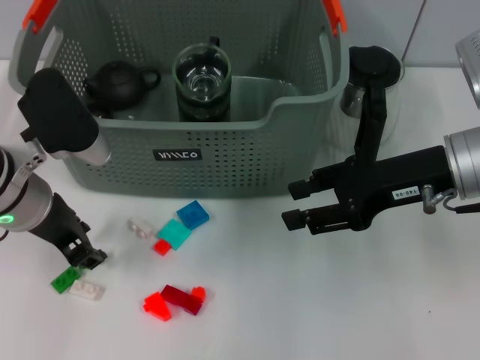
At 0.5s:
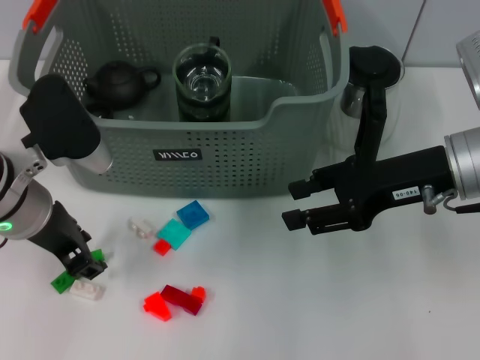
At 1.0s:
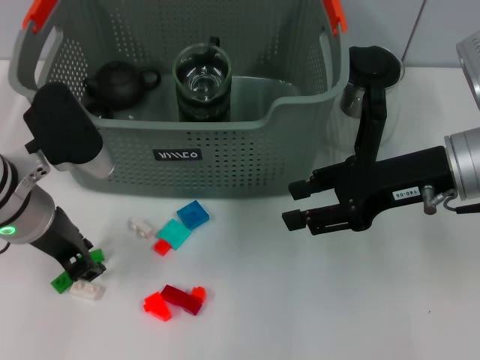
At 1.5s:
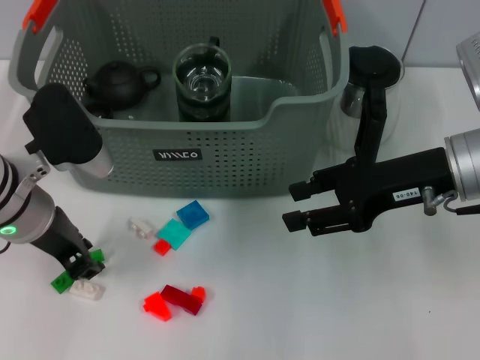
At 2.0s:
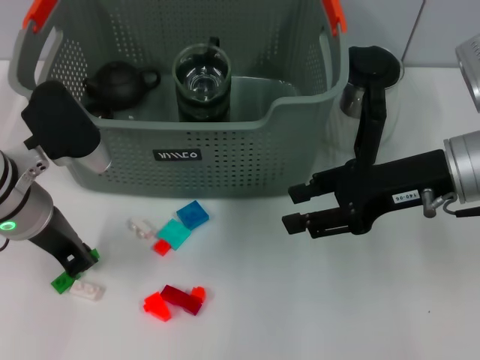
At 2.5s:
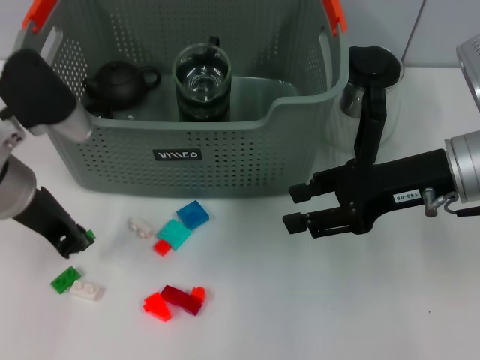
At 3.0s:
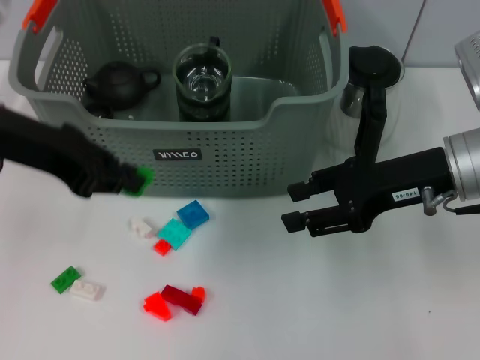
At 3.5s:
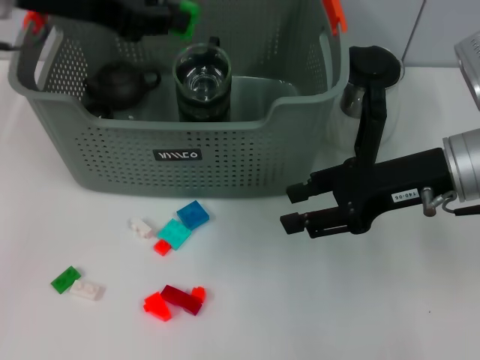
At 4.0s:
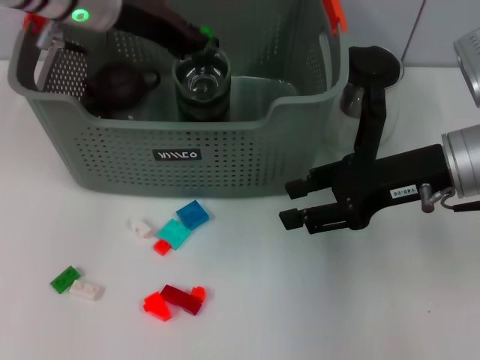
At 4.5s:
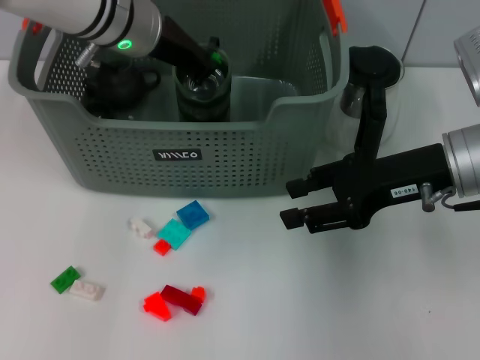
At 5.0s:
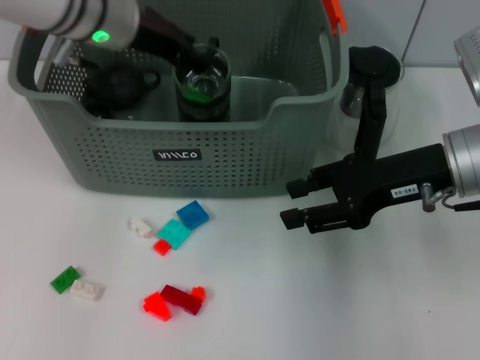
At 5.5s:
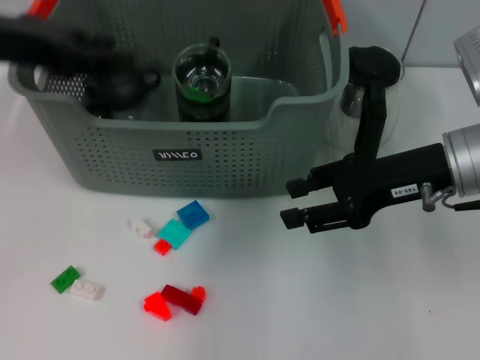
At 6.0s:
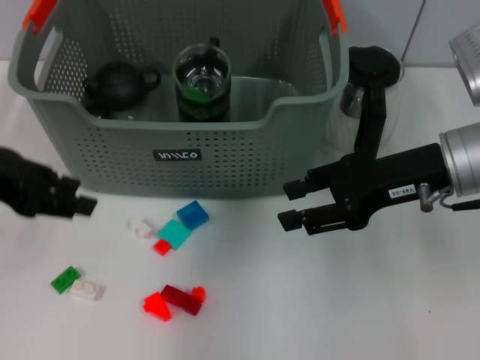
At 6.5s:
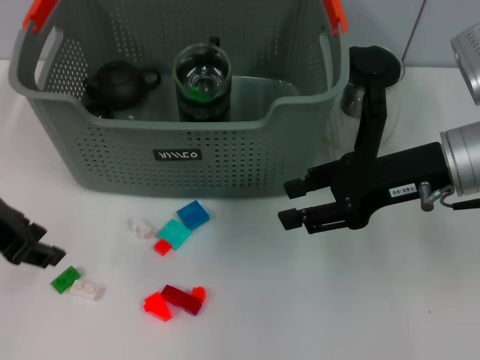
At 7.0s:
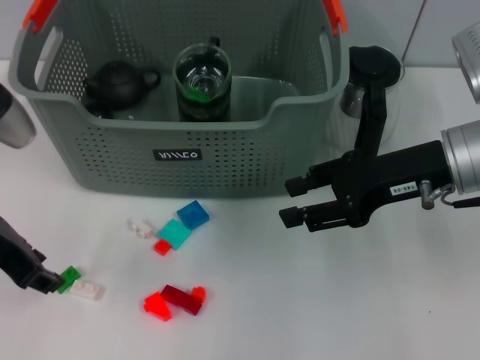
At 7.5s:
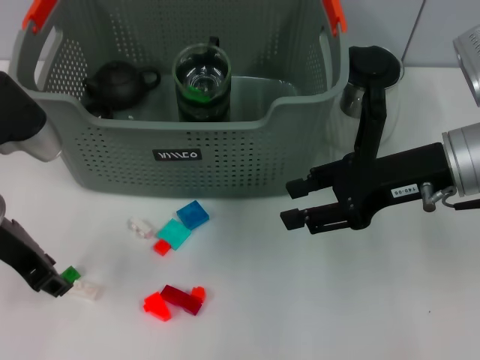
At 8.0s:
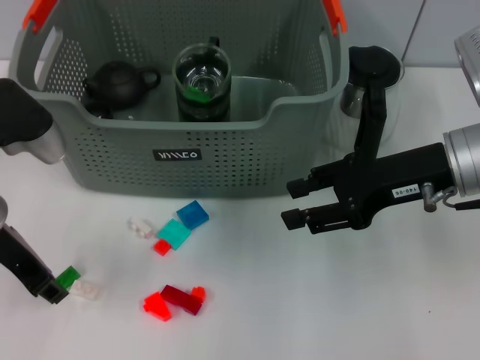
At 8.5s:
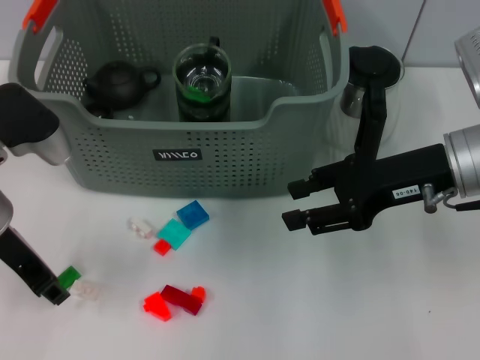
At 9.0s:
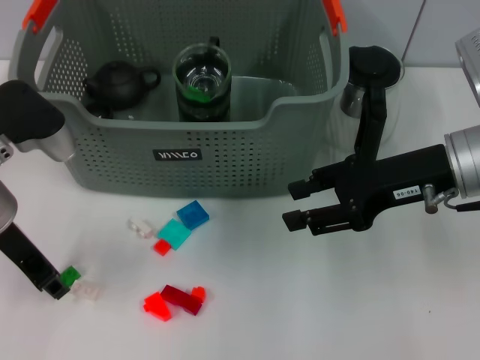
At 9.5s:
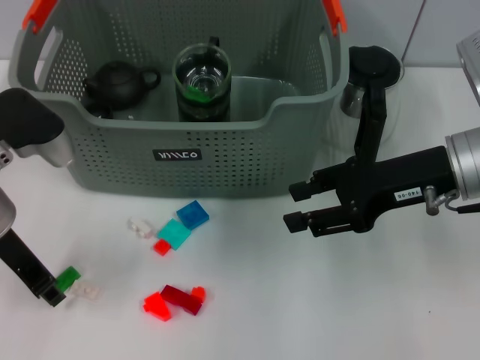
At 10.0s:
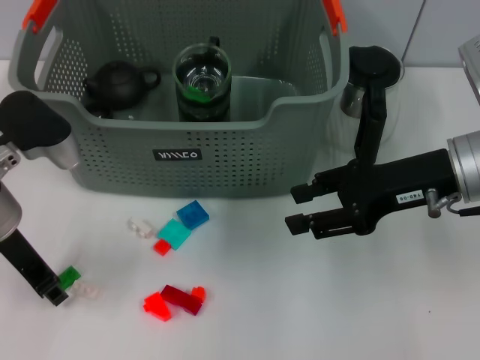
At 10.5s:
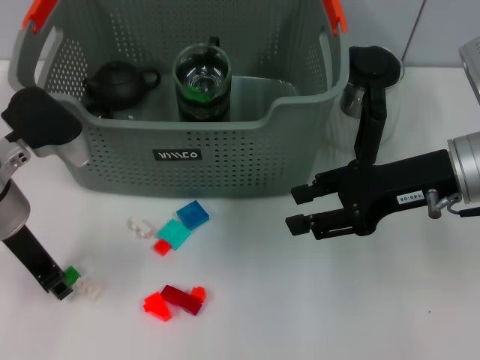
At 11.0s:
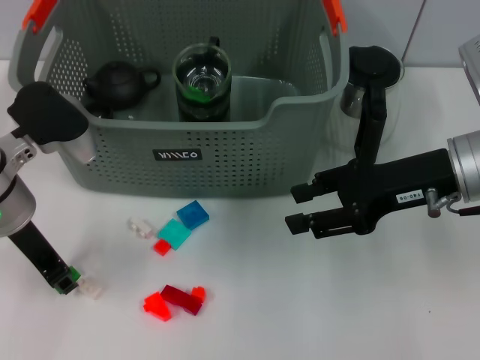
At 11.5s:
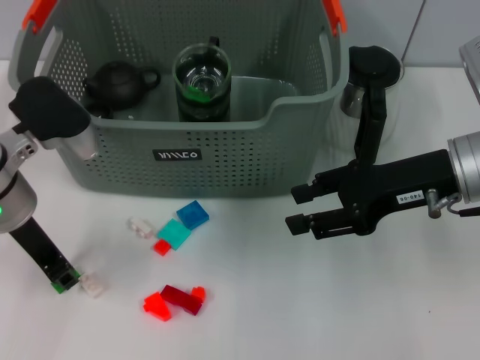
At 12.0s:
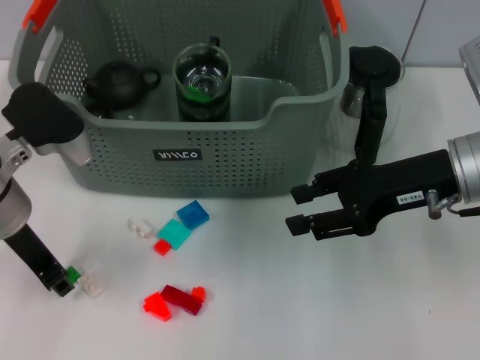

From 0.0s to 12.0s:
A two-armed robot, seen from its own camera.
Task of the whole recording: pick up the teacup on the table and place it into the storage bin, pick up the block on the table and place it into the storage bin.
Step, from 0.0s to 2.0s: Grasp the green block with left gripper.
Step, from 2.5s to 5.0s: Place the green block in the storage box with left gripper.
From 0.0s to 2.0s: The left gripper closes up.
From 2.0s to 4.0s: The left gripper is displaced forward and upward by some 15 cm.
From 4.0s to 6.0s: The left gripper is displaced backward and to the left by approximately 20 cm, and opens up.
From 6.0s to 8.0s: The left gripper goes roughly 5 cm downward.
From 8.0s to 12.0s: The grippers make only small movements.

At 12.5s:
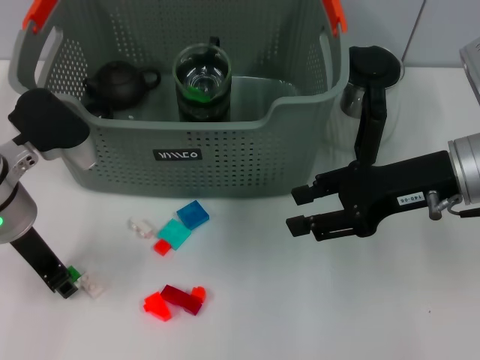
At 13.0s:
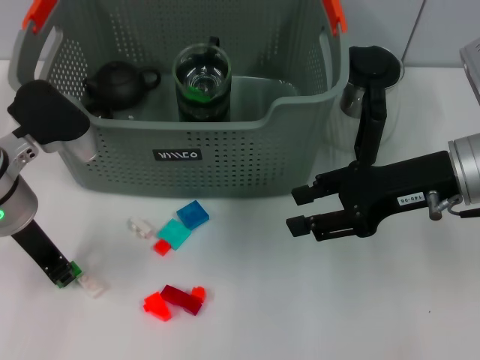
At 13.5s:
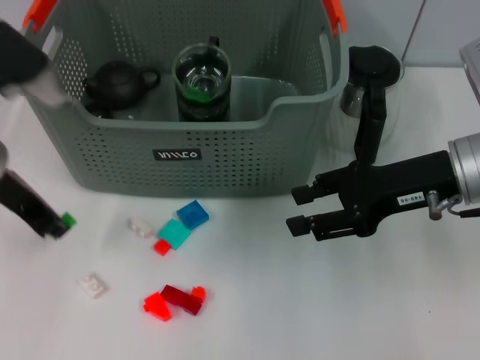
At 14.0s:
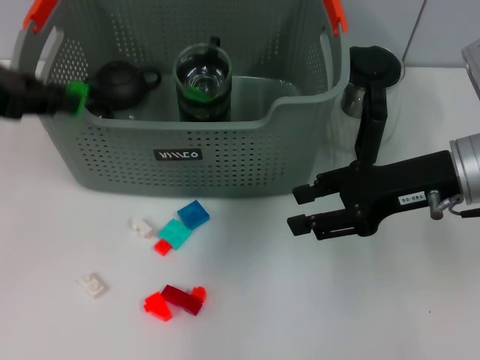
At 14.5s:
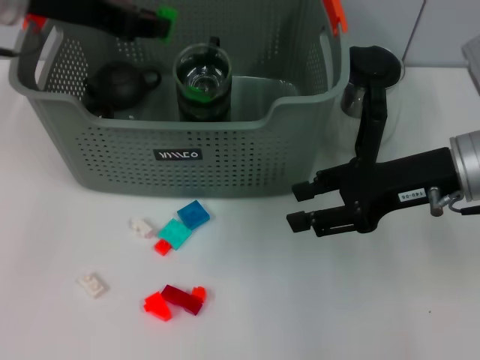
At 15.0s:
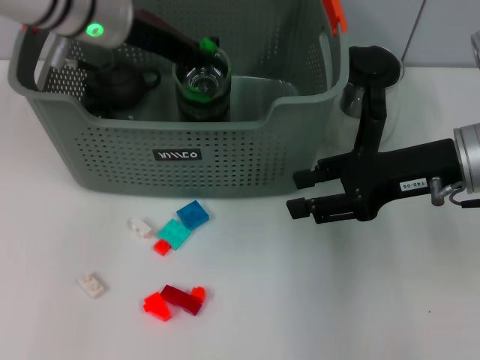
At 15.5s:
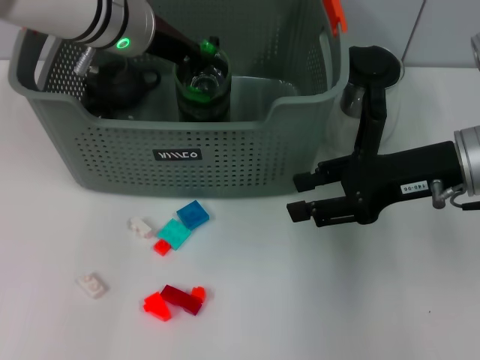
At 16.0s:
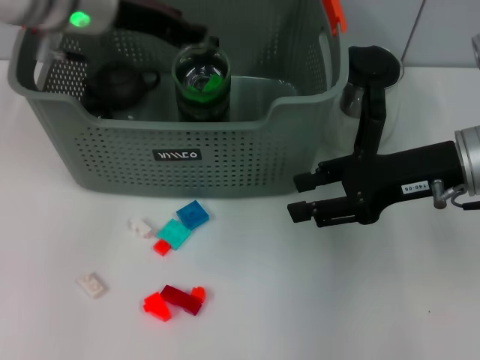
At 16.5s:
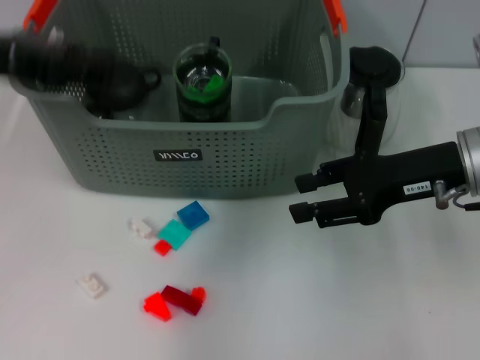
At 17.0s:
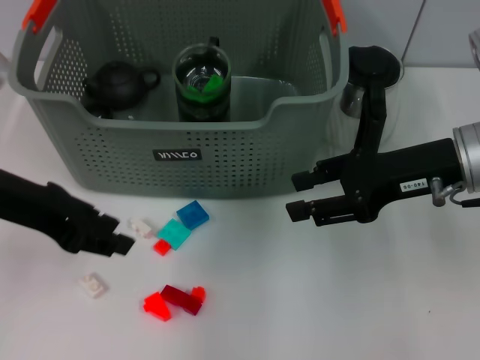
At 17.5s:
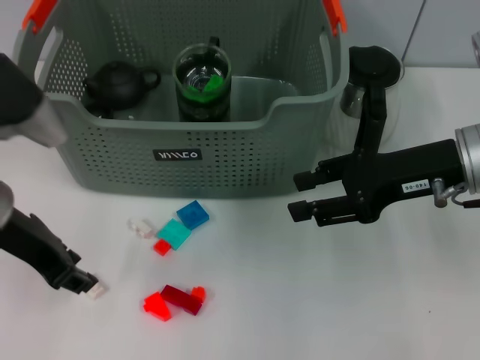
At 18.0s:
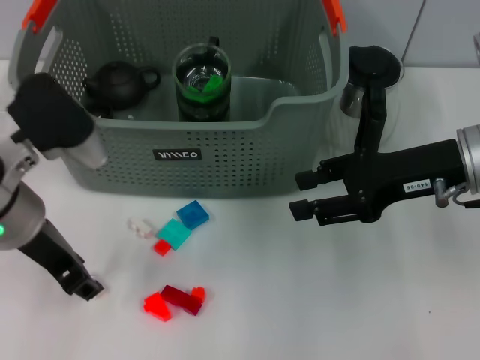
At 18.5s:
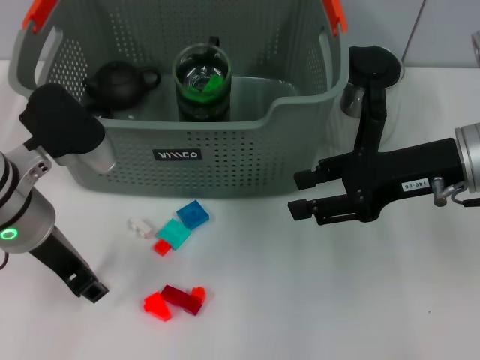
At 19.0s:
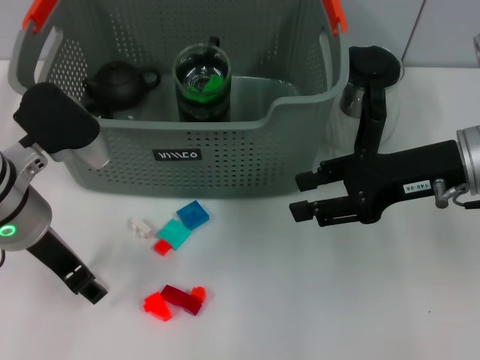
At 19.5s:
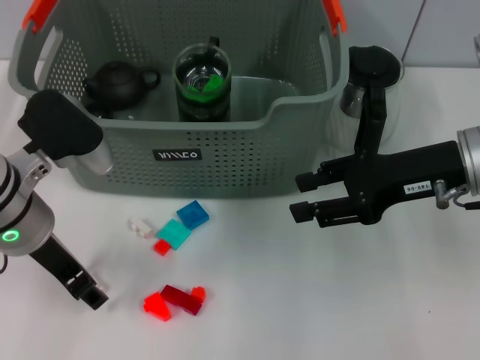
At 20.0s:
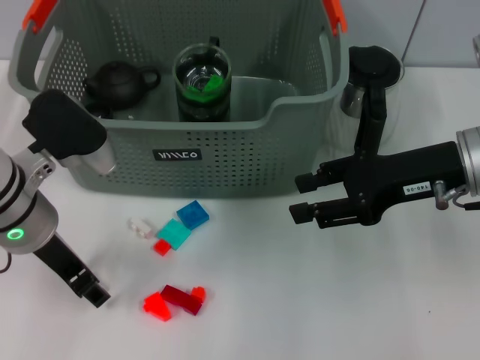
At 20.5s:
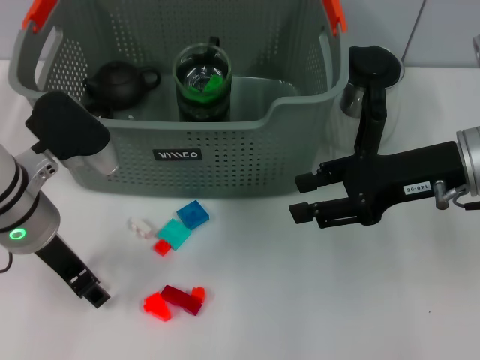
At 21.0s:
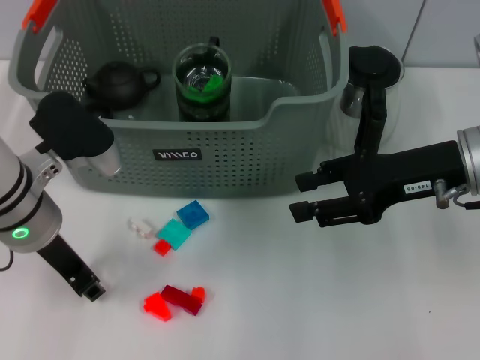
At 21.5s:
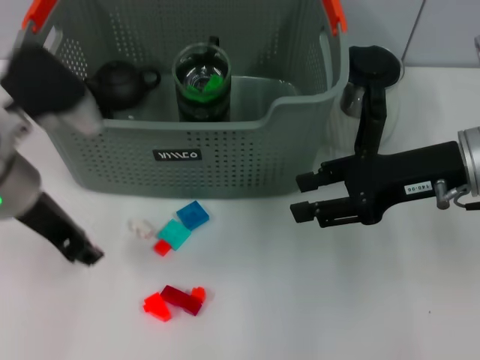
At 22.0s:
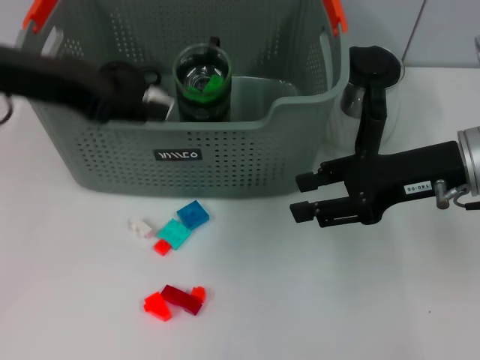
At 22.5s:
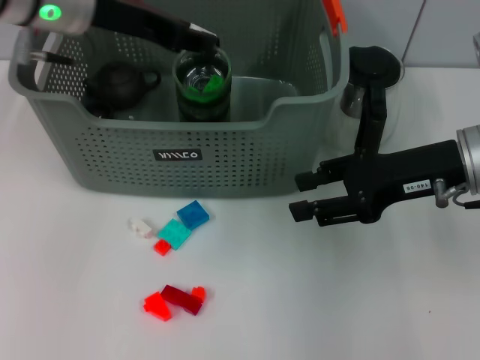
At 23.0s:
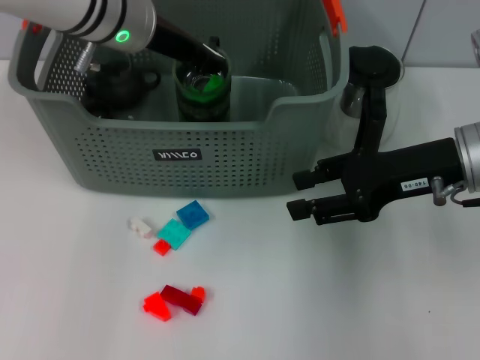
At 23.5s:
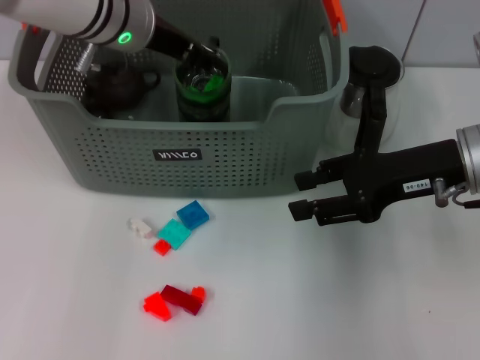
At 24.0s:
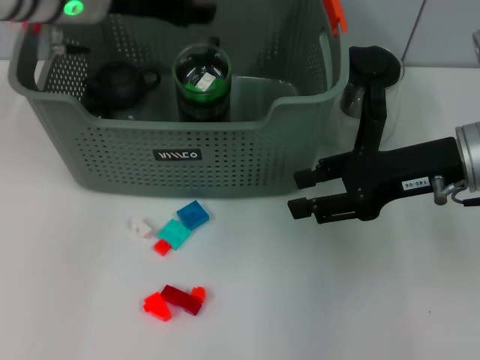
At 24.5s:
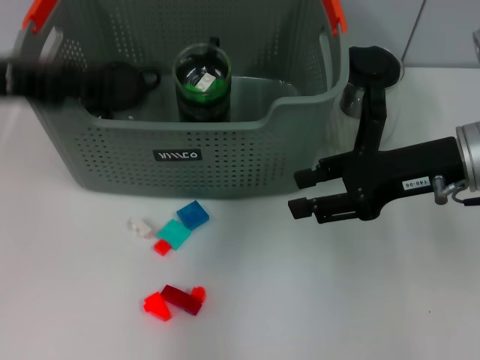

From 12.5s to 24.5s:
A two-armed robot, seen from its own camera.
Task of the whole recording: pick up the teacup on the table and place it into the storage bin, pick up the block on the table and place it into the storage bin.
Step, from 13.5s to 15.5s: Place the green block in the storage box with left gripper.
Step, from 16.0s to 21.0s: Grasp the white block with left gripper.
Step, from 21.5s to 23.5s: Place the white block in the storage box with left gripper.
From 12.5s to 14.5s: The left gripper travels upward and forward by roughly 15 cm.
From 14.5s to 16.5s: The left gripper is displaced backward and to the left by approximately 10 cm.
From 16.5s to 18.5s: The left gripper travels downward and to the right by about 15 cm.
From 18.5s to 20.5s: The grippers stay close to where they were, moving slightly.
From 20.5s to 22.5s: The left gripper moves upward and forward, some 15 cm.
From 22.5s to 24.5s: The left gripper heads backward and to the left, covering approximately 15 cm.

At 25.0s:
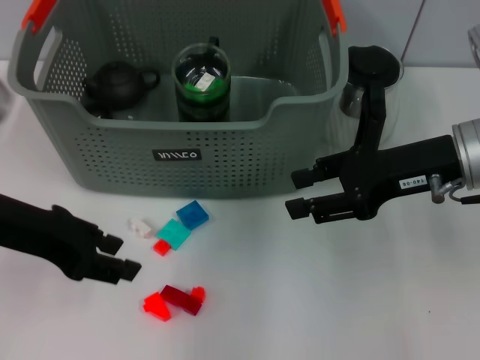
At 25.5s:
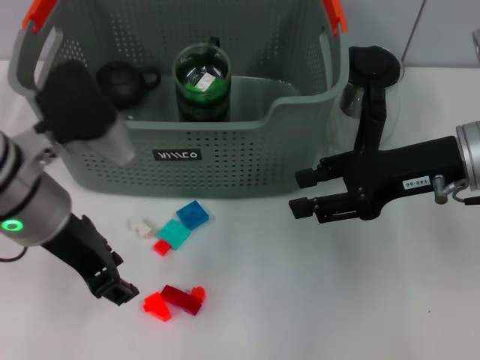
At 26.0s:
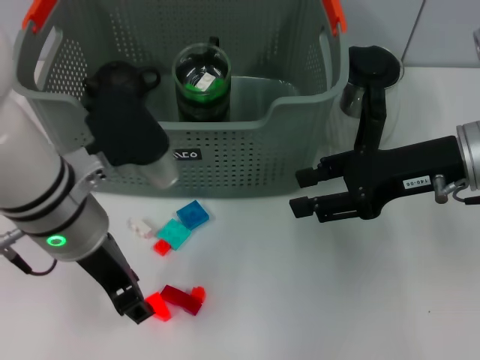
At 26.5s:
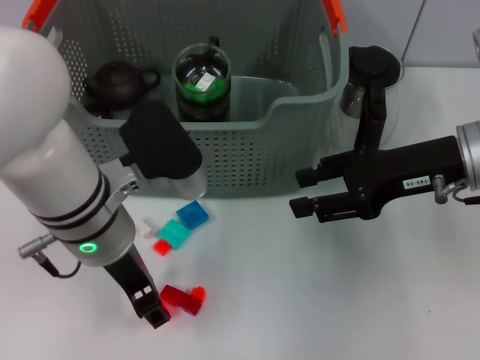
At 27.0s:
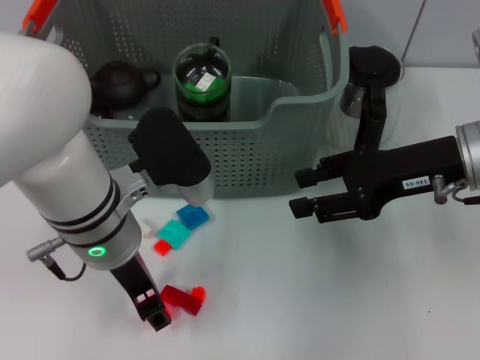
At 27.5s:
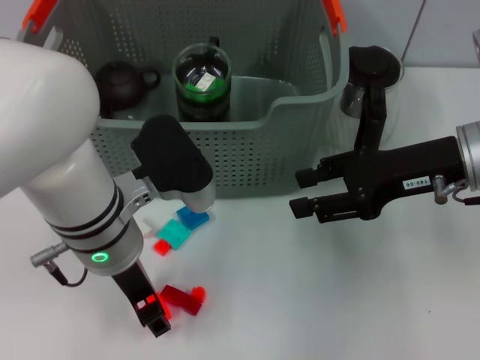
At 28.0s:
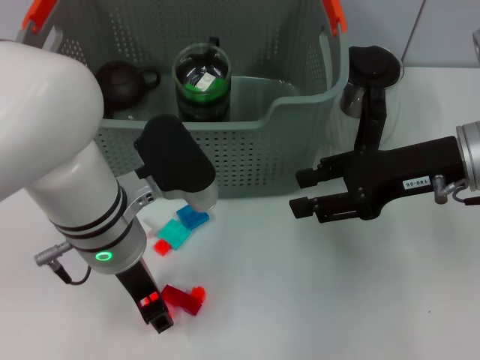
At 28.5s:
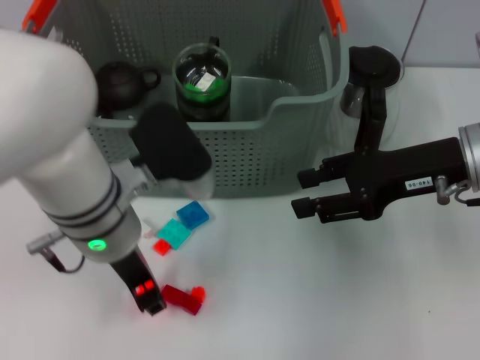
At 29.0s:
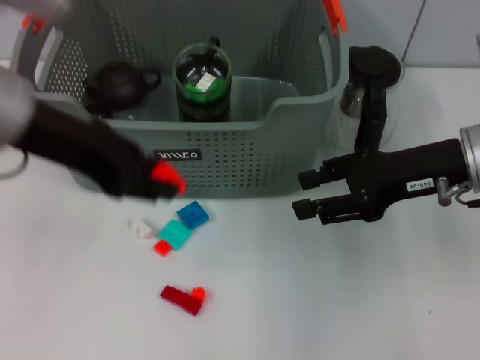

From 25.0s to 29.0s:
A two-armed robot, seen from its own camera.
Task of the whole recording: pick up the teacup on the table and place it into the storage bin, pick up the block on the table and place it into the storage bin.
Step, from 25.0s to 28.0s: Grasp the orange block with left gripper.
From 25.0s to 27.0s: The left gripper goes about 15 cm to the right.
From 27.0s to 29.0s: The left gripper is displaced upward and to the left by approximately 15 cm.
